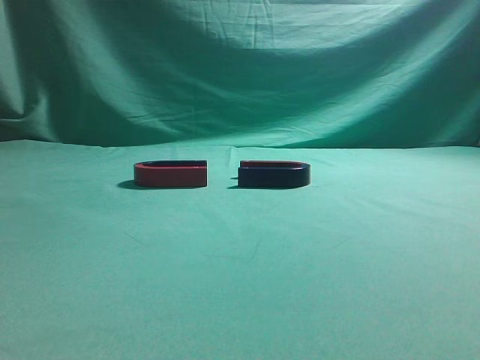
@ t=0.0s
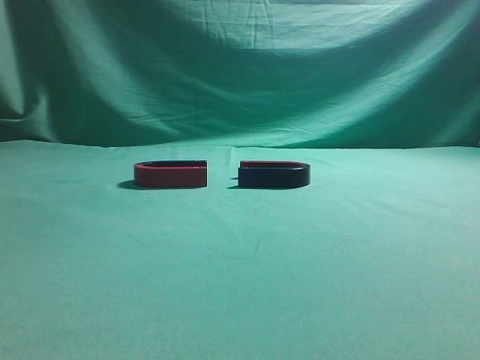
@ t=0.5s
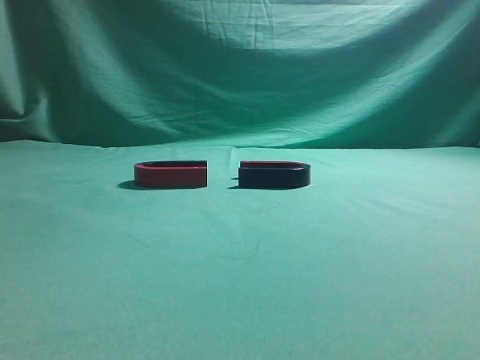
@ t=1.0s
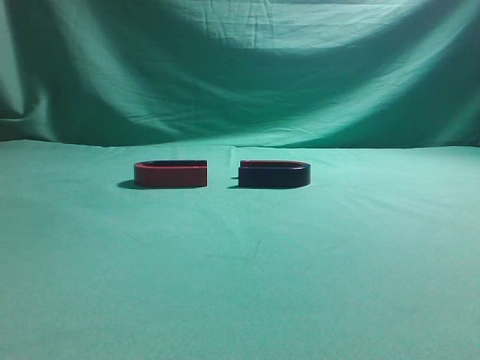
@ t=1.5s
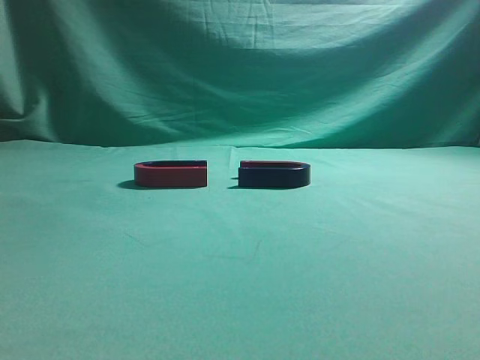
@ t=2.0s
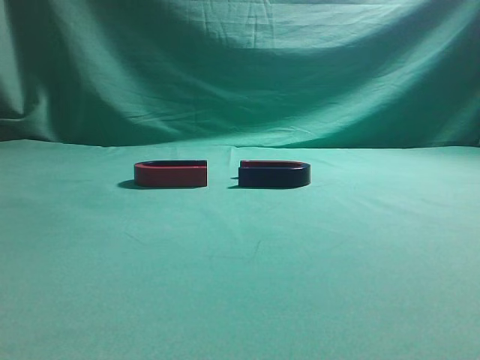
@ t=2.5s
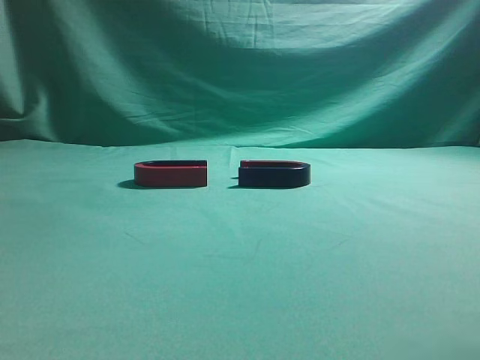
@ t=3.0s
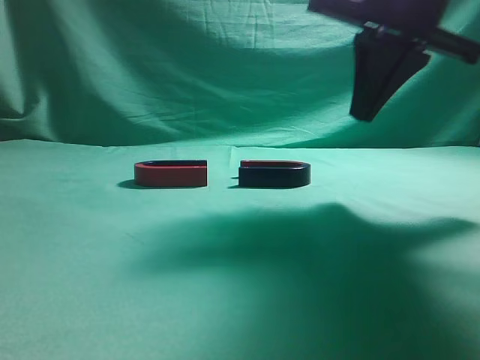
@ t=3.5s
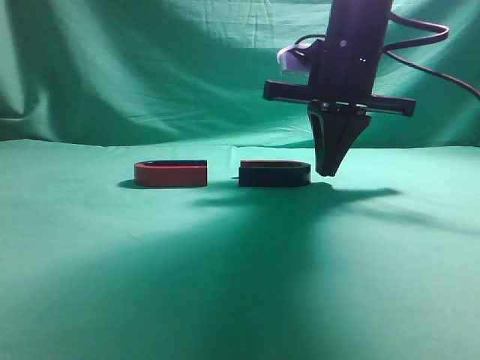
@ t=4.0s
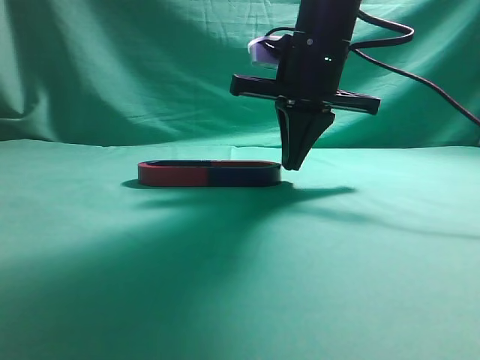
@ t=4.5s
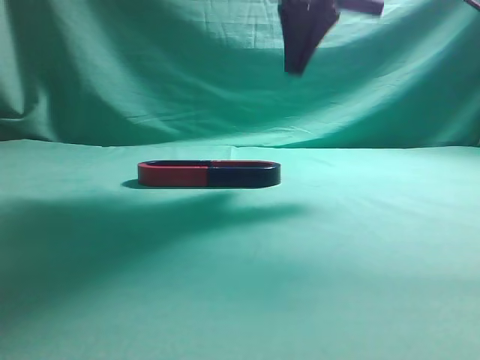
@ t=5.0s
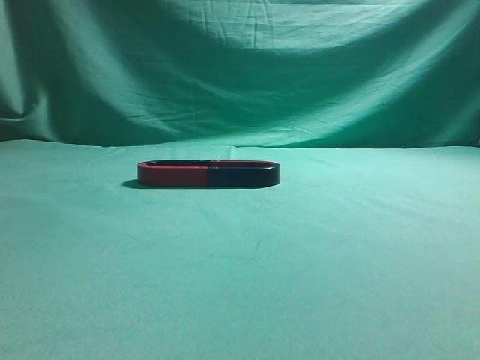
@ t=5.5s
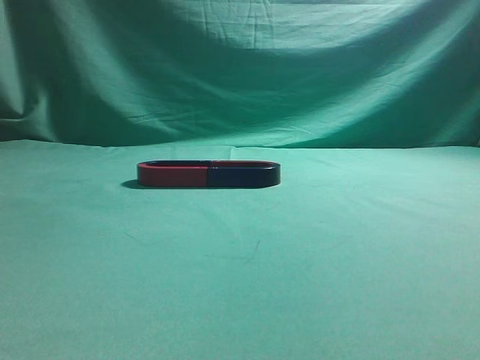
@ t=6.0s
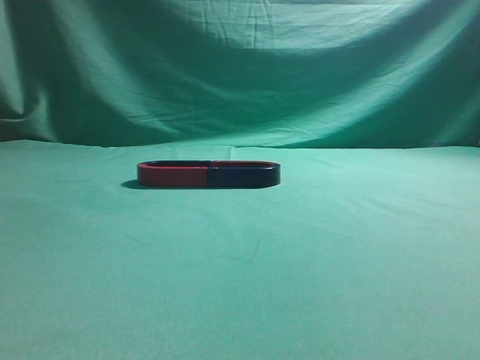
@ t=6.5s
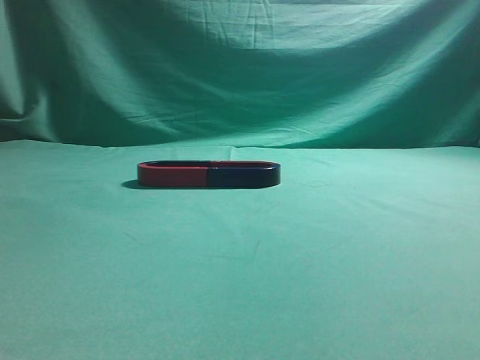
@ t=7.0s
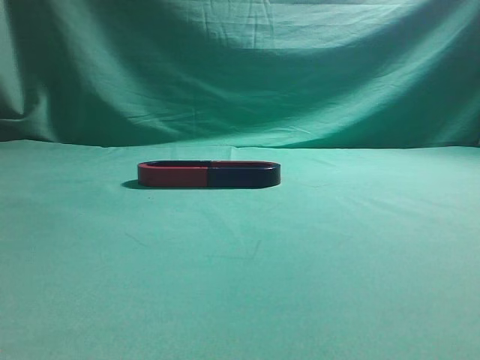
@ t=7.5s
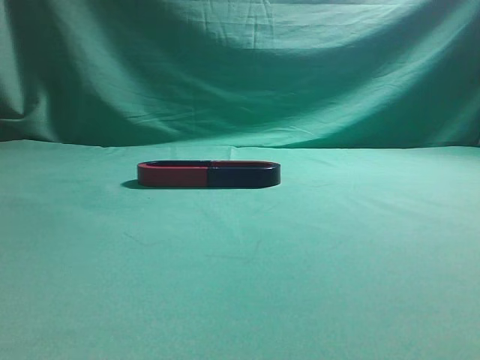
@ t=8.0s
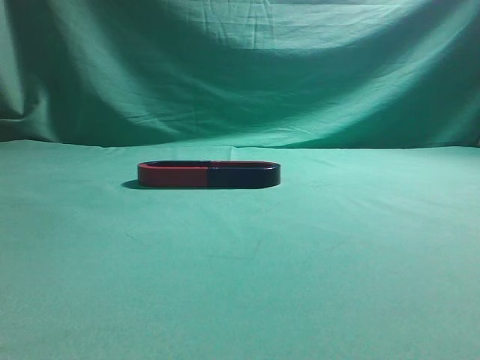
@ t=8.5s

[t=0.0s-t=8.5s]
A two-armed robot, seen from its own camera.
Task of the whole recording: push the magnet on the table from its original position to another position.
Step, t=0.0s to t=4.5s: Push the magnet on the right to connect the magnet on the left.
t=2.0s to t=4.0s: The right gripper is displaced forward and to the left by approximately 40 cm.
t=4.0s to t=6.5s: The right gripper shifts about 40 cm backward, upward and to the right.
